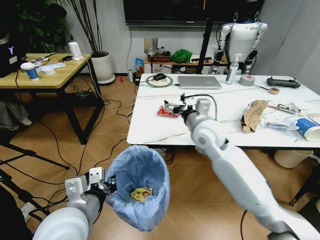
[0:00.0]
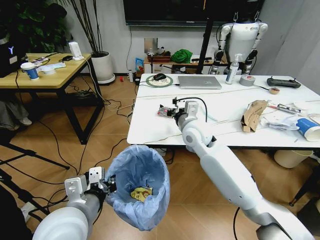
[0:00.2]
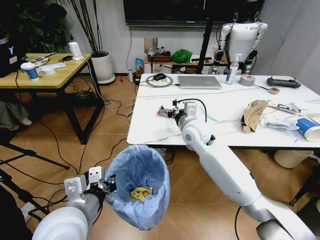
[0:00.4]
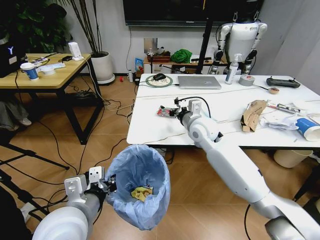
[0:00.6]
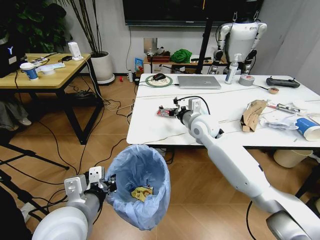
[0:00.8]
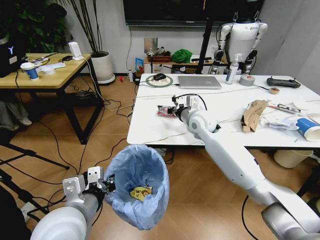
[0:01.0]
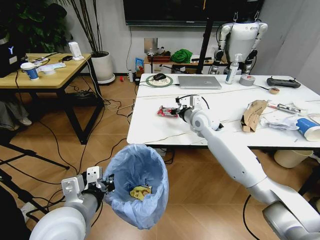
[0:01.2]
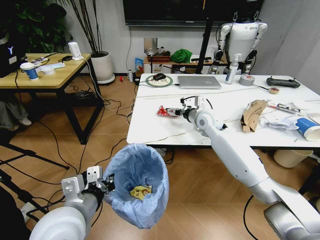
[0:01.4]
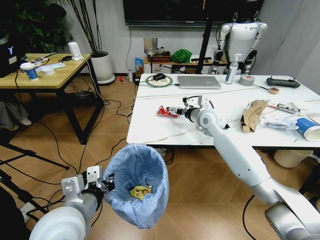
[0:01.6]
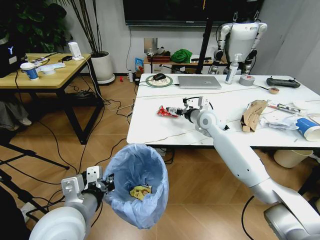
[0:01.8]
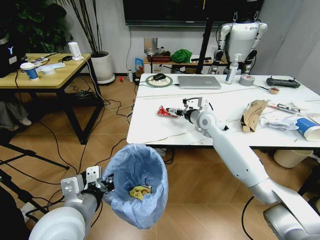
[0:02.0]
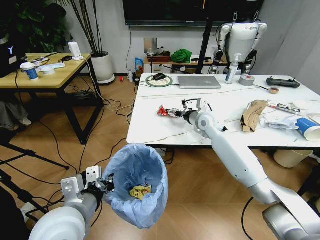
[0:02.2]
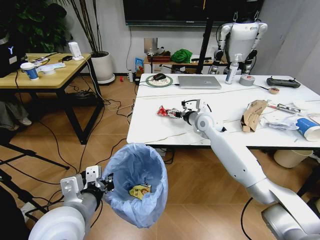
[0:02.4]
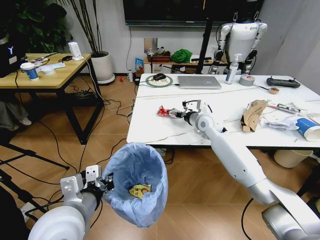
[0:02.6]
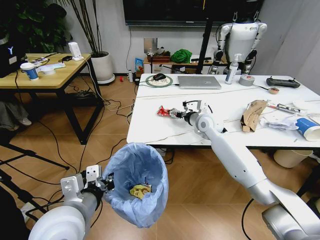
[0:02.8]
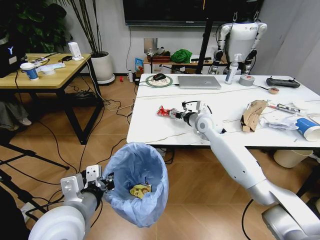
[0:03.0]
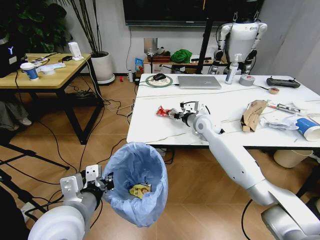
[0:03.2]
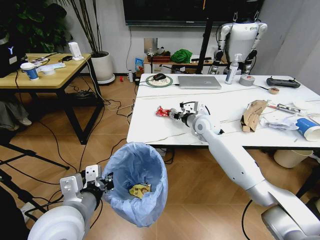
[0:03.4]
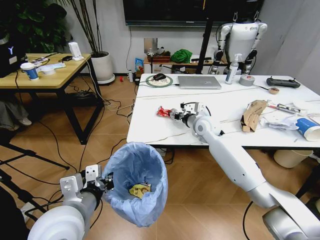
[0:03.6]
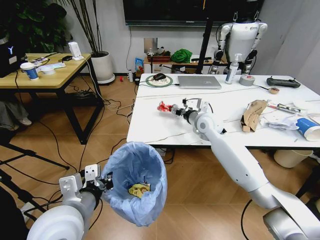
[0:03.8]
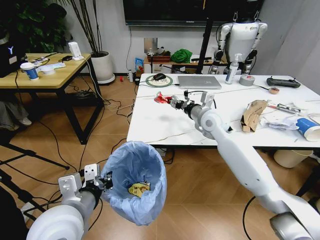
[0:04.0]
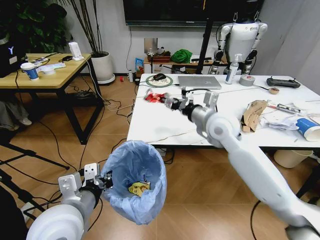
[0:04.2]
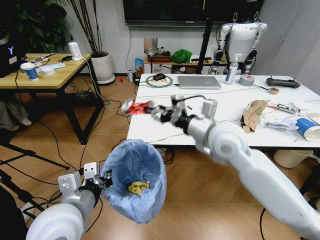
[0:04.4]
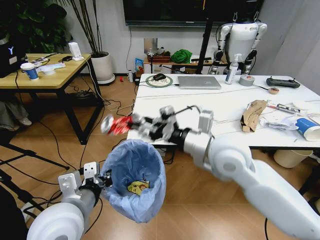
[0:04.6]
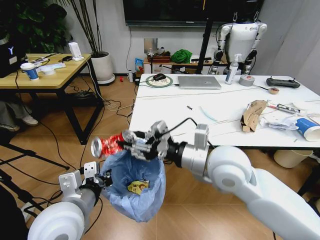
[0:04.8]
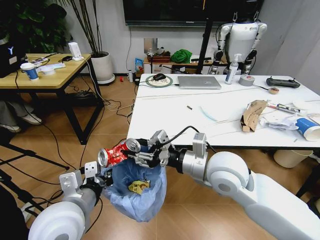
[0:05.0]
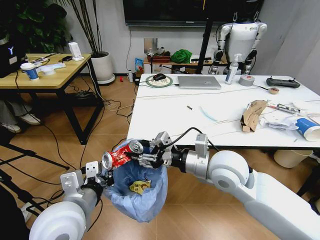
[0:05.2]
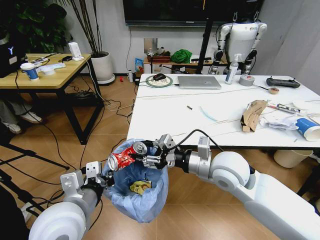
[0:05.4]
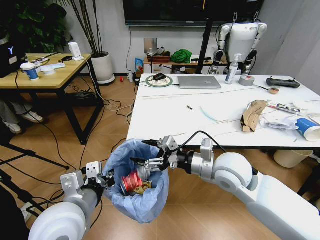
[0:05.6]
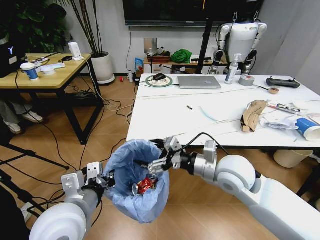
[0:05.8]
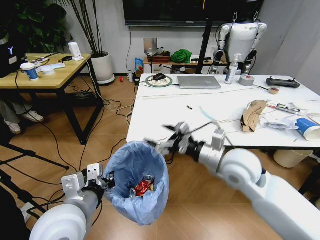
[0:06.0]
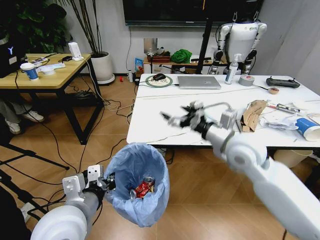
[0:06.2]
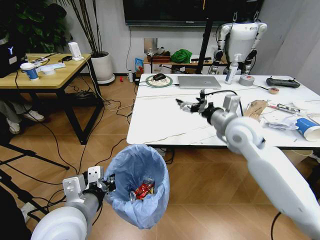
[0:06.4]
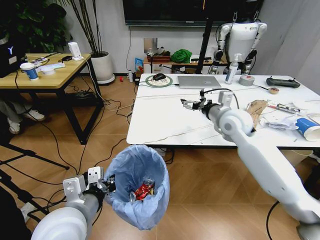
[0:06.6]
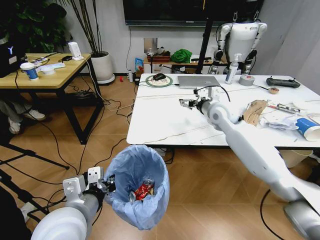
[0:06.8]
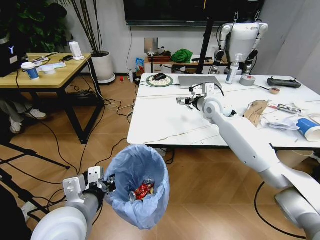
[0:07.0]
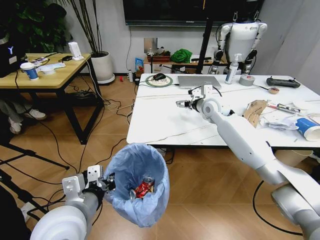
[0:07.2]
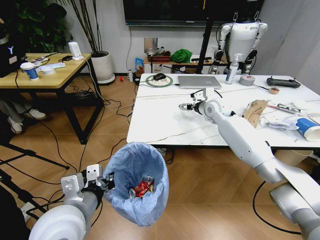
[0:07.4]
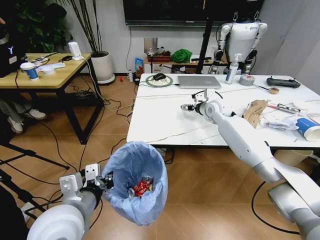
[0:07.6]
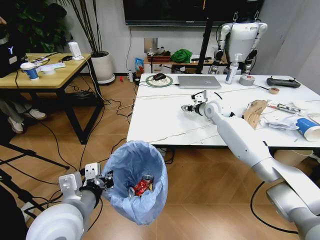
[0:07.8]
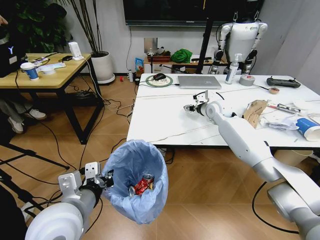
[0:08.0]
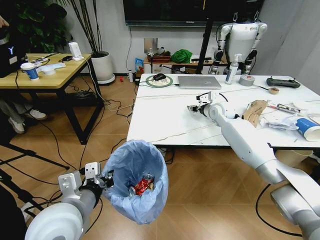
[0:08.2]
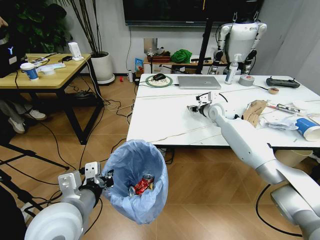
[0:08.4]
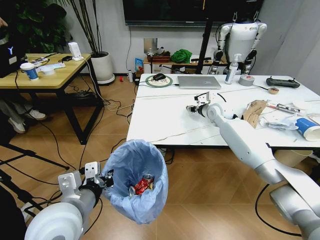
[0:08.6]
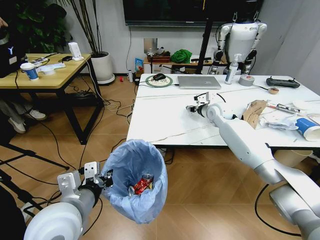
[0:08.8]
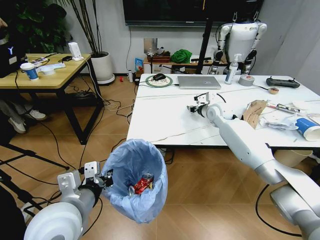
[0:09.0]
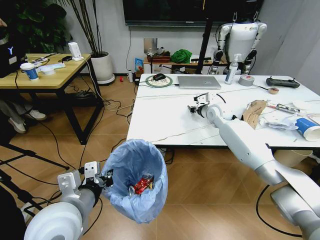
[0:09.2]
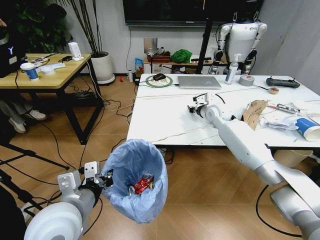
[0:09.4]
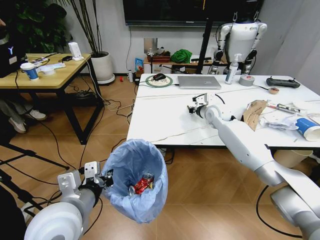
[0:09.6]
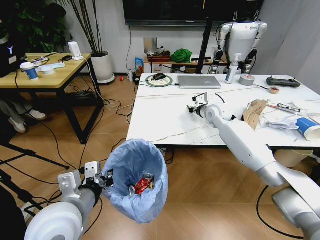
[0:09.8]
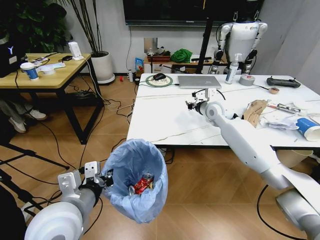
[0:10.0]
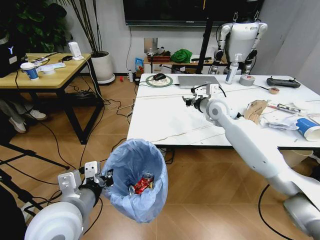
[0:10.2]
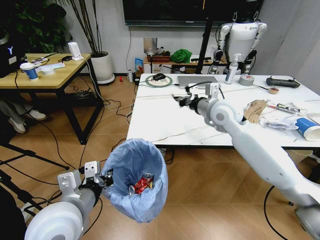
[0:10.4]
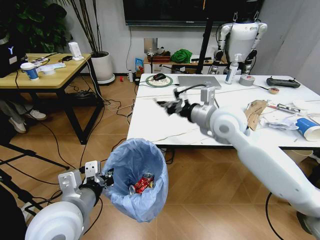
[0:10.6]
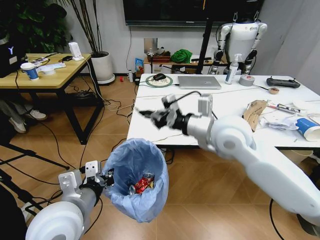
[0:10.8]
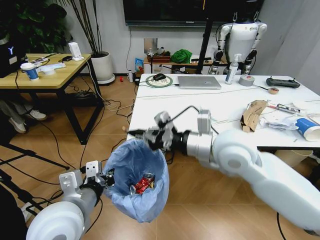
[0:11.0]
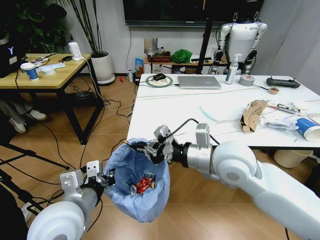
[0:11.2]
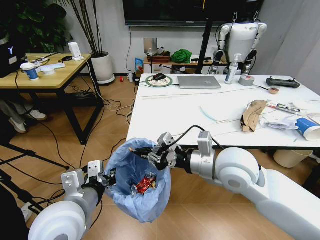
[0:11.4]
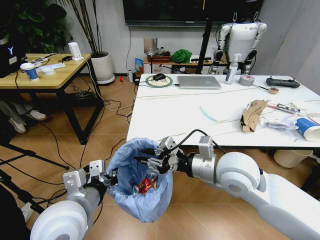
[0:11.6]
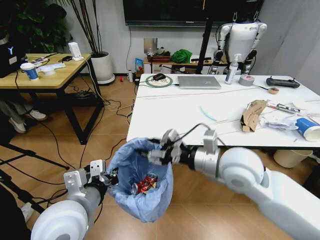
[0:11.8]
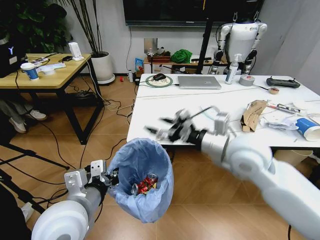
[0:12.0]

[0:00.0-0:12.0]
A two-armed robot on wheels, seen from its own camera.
Task of the whole recording: Pick up the trash bin and place the trash from the table into it.
0:00.0 to 0:01.6: The right gripper travels forward and to the right by roughly 15 cm.
0:01.6 to 0:03.0: There are only small adjustments of the grippers.
0:03.0 to 0:04.4: The right gripper travels backward and upward by about 20 cm.
0:04.4 to 0:06.0: The right gripper shifts about 5 cm downward, and opens.
0:06.0 to 0:07.6: The right gripper travels forward by about 30 cm.
0:07.6 to 0:09.0: The right gripper closes up.
0:09.0 to 0:10.4: The right gripper is displaced upward by roughly 5 cm.
0:10.4 to 0:12.0: The right gripper travels backward by about 25 cm, and opens.

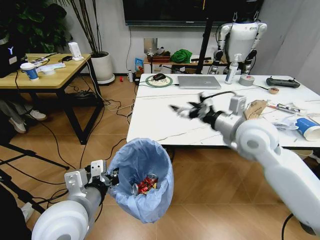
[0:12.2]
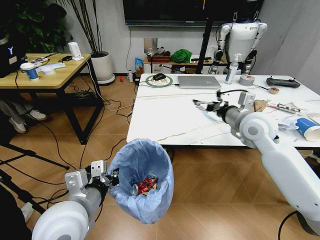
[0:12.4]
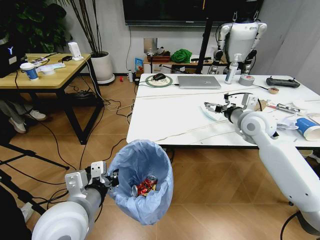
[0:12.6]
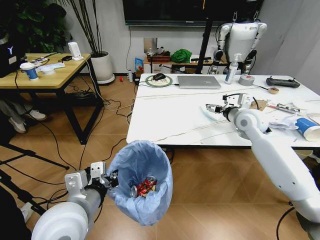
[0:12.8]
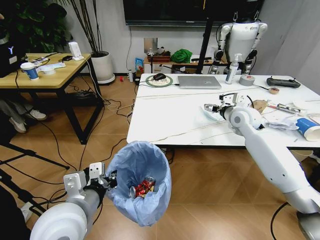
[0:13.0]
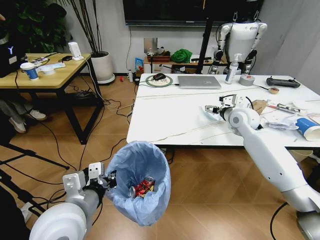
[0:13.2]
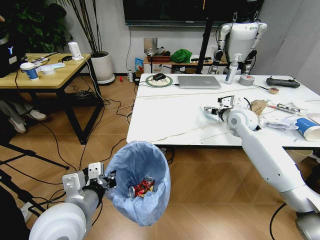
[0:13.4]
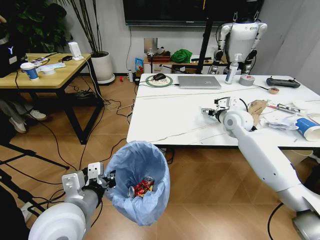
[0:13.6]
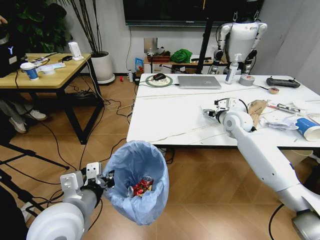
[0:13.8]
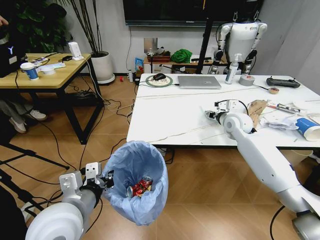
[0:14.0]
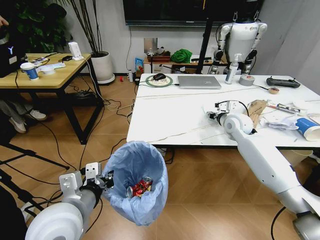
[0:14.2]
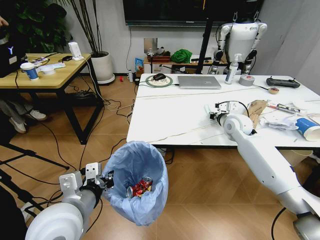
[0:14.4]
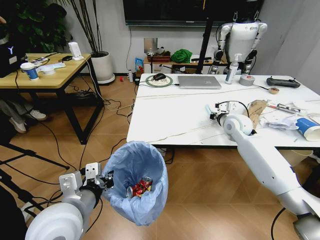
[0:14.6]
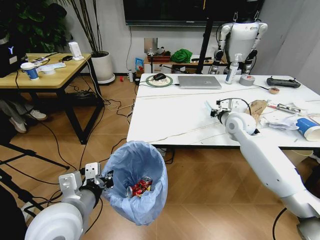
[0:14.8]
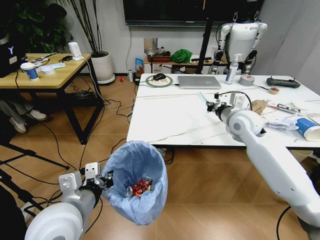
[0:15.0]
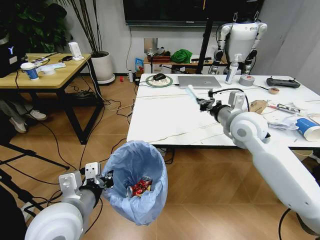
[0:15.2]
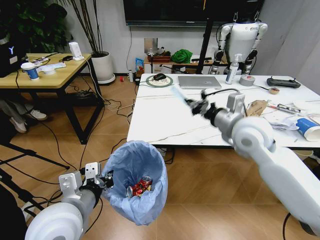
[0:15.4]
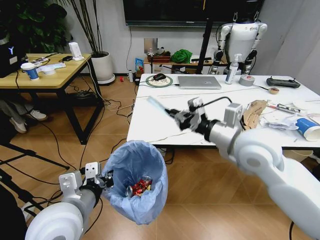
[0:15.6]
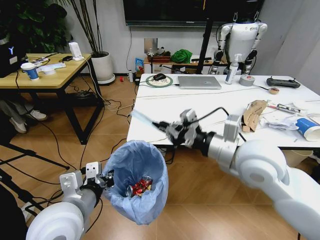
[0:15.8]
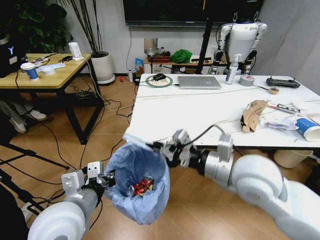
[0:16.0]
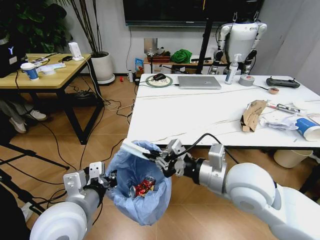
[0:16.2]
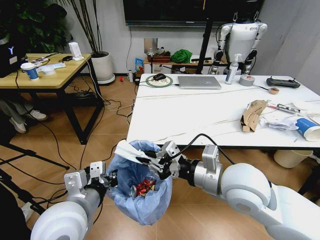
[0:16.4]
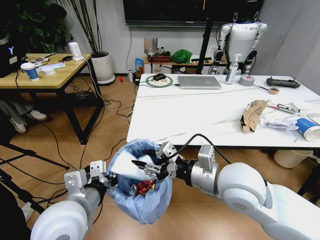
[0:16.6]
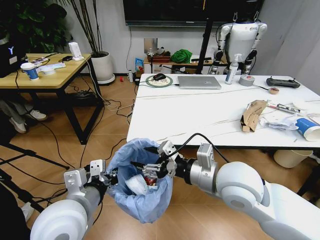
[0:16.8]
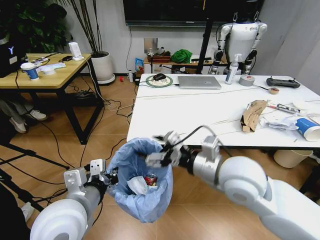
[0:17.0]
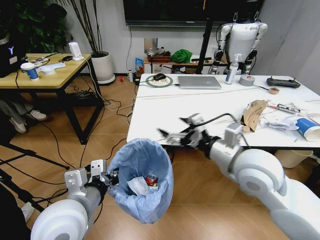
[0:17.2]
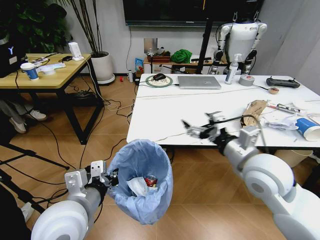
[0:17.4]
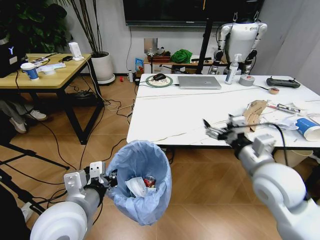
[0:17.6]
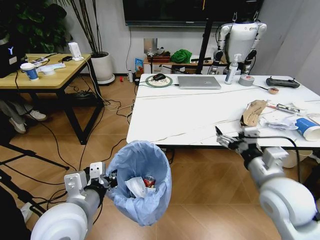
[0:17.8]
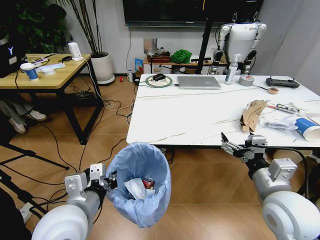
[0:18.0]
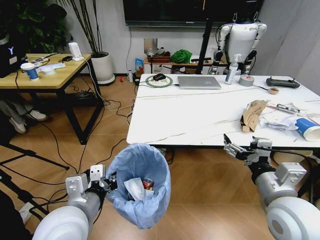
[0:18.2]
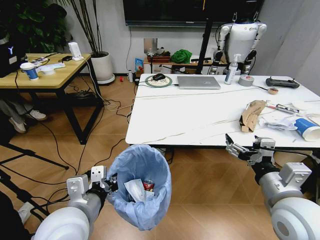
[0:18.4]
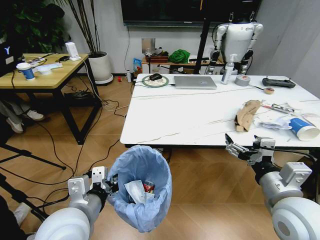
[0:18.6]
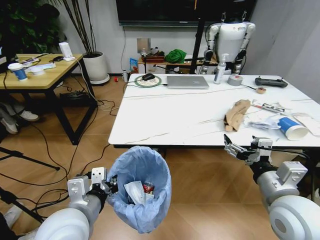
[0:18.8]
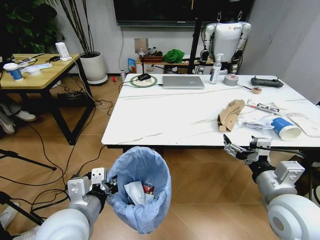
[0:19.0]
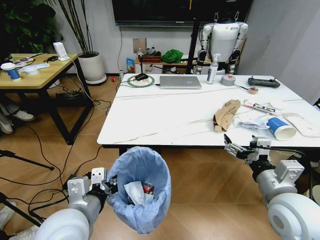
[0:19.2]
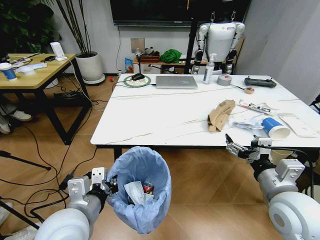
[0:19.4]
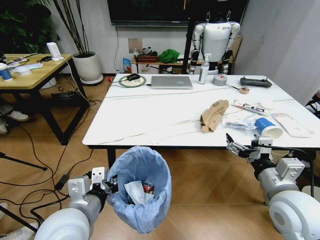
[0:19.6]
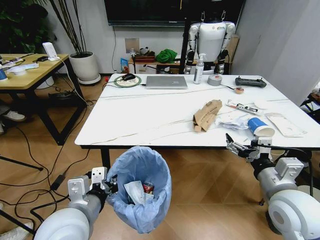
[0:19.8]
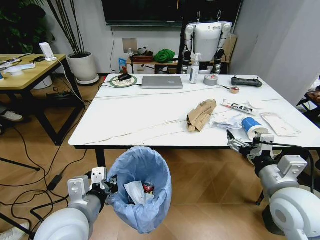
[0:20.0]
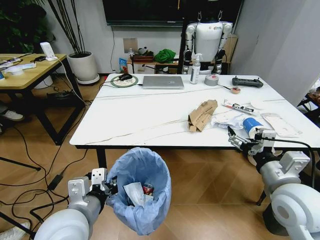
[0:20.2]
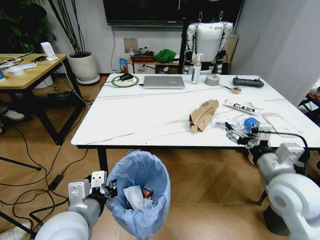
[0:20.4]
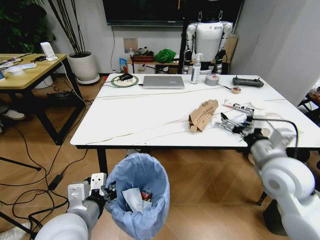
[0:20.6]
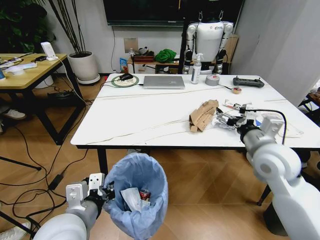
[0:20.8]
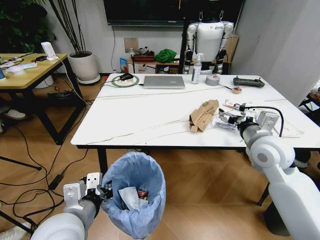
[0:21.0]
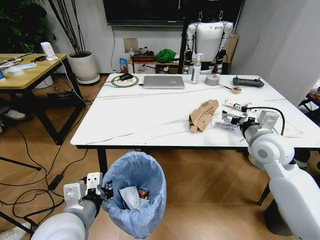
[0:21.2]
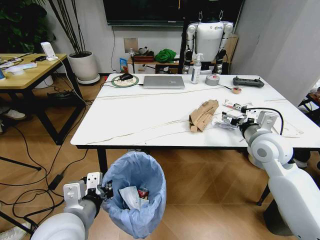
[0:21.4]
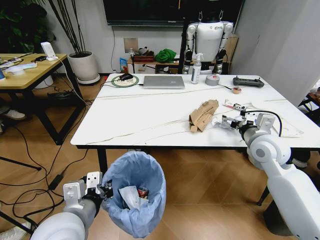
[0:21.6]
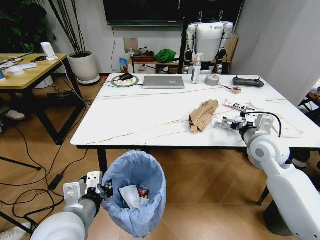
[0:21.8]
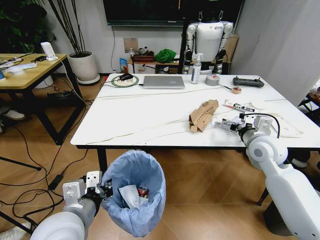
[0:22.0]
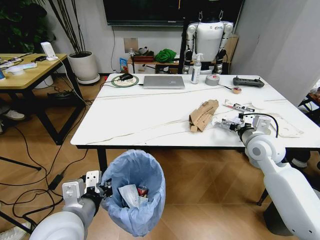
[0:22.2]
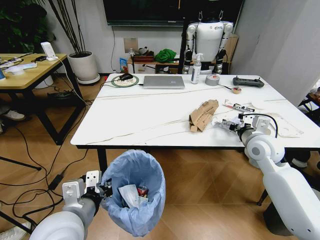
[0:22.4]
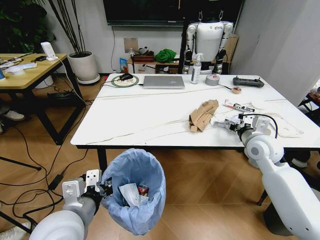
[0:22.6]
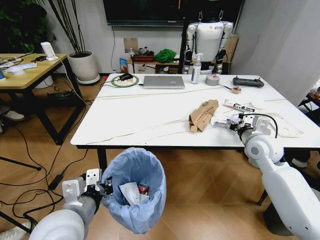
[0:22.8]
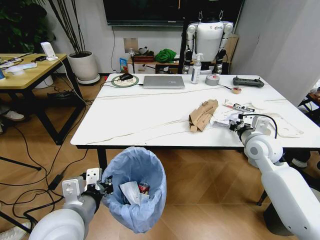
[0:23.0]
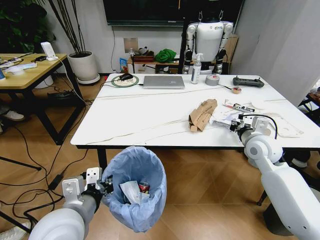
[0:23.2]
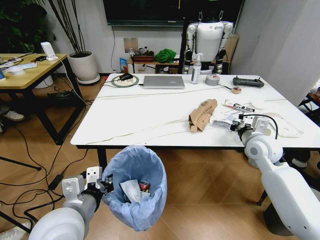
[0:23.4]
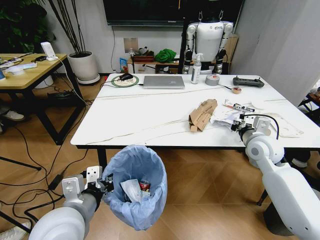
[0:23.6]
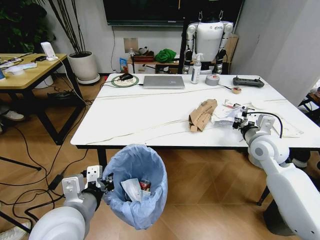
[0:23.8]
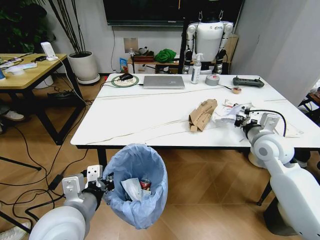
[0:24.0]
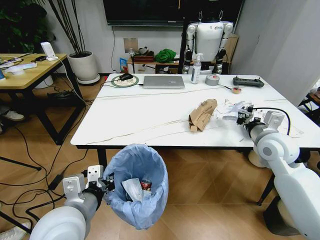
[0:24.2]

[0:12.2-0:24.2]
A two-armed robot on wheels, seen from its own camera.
Task of the whole recording: Pick up the trash bin and place the trash from the table into it.
0:12.2 to 0:13.8: The right gripper is displaced forward and to the right by about 25 cm.
0:13.8 to 0:15.2: The right gripper closes.
0:15.2 to 0:16.6: The right gripper heads backward, covering some 25 cm, and opens.
0:16.6 to 0:18.2: The right gripper opens.
0:18.2 to 0:19.8: The right gripper travels backward, to the right and downward by roughly 10 cm.
0:21.2 to 0:22.6: The right gripper shifts roughly 15 cm forward.
0:22.6 to 0:24.2: The right gripper closes.
